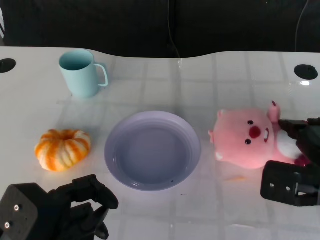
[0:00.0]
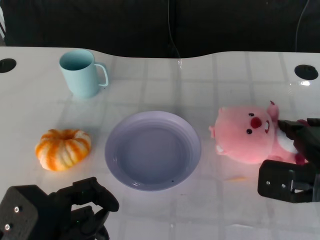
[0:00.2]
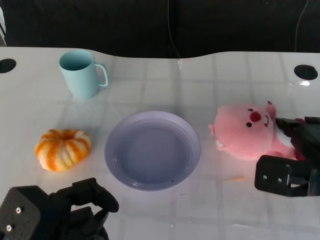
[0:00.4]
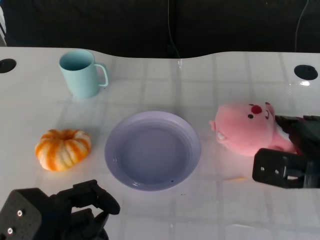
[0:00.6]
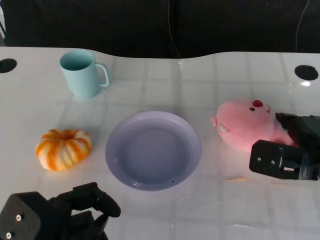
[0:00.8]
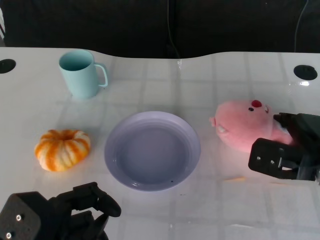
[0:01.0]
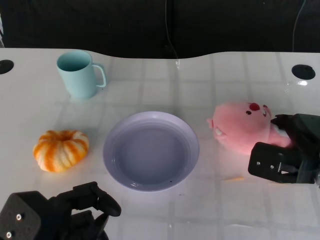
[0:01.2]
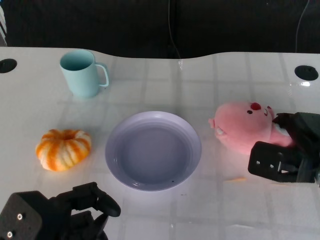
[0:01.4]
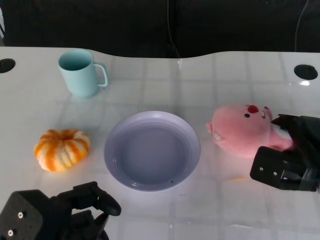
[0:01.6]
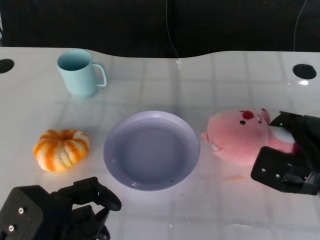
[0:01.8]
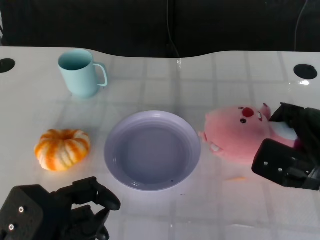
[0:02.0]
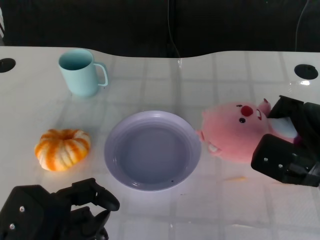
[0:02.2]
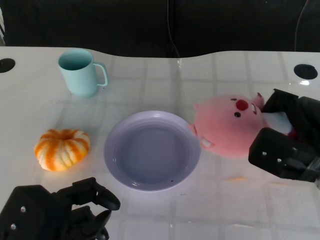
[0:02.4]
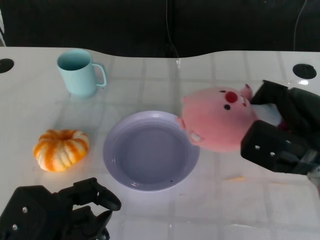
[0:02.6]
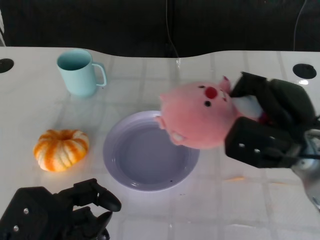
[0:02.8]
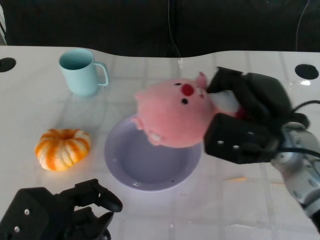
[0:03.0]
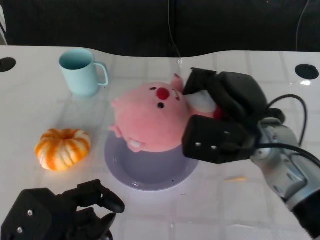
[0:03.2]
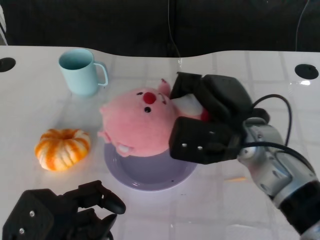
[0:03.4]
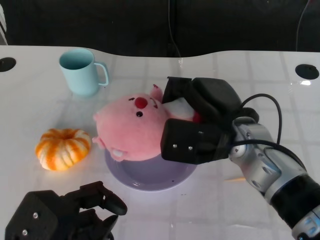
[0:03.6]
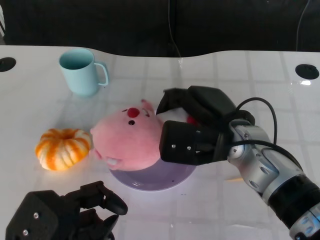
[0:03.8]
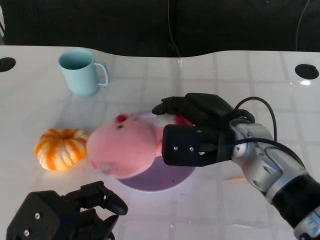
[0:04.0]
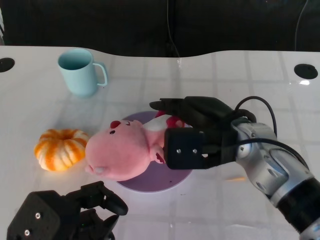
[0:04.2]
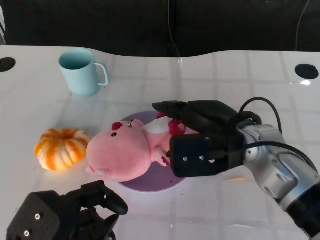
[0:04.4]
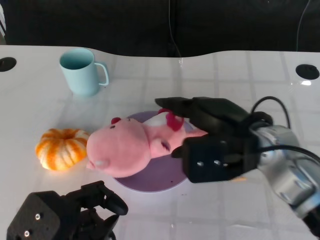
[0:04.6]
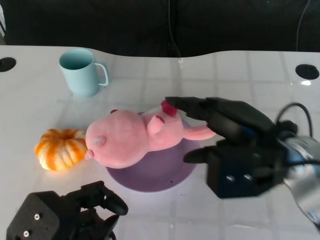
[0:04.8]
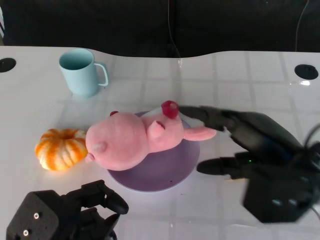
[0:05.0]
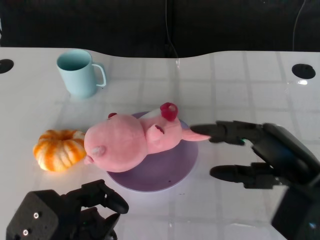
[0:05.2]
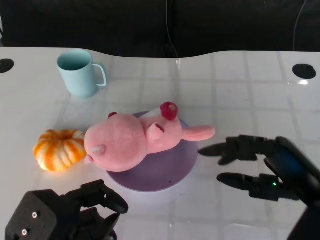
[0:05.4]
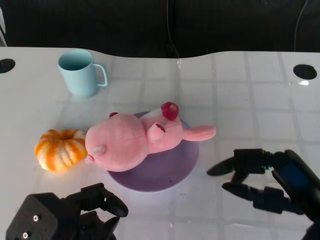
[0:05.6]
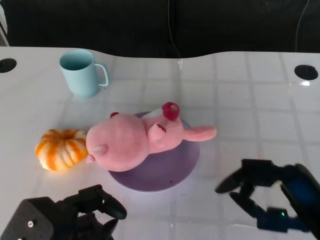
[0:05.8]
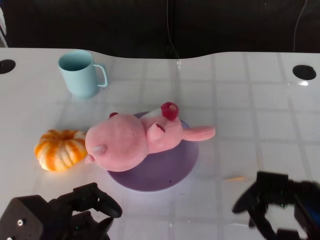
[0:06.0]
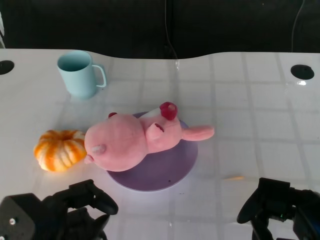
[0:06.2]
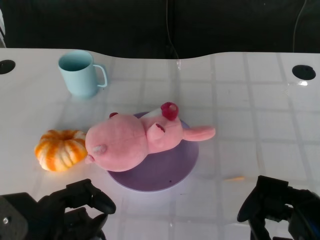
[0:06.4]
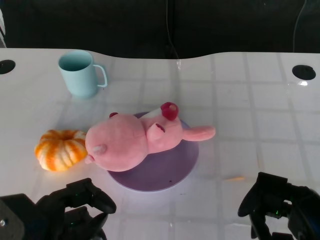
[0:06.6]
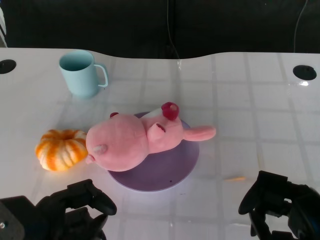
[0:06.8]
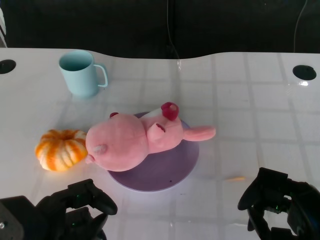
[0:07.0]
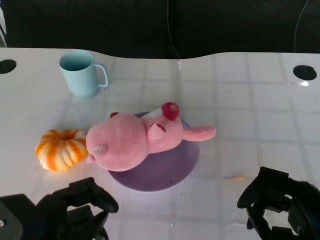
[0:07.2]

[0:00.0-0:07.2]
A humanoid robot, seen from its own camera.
Task of the whole recording: Pick up the doll on the other side of the plate and place it into the plate.
Step, 0:00.0 to 0:02.6: Grasp the pink doll with the right gripper.
Step, 0:02.8 to 0:04.8: Place the pink doll into the plate with the right gripper.
0:00.0 to 0:01.4: The right hand changes place by about 5 cm.
0:01.4 to 0:02.8: The right hand travels upward by some 5 cm.
0:02.8 to 0:04.4: The right hand goes about 10 cm to the left.
0:04.4 to 0:05.8: The right hand shifts about 15 cm backward and to the right.

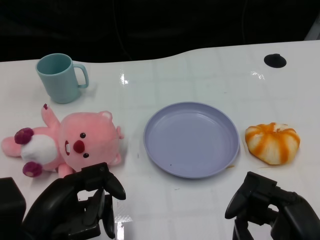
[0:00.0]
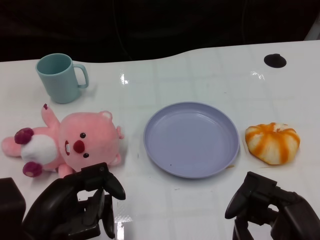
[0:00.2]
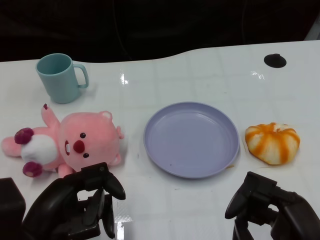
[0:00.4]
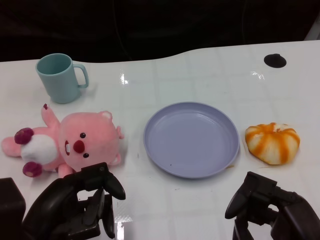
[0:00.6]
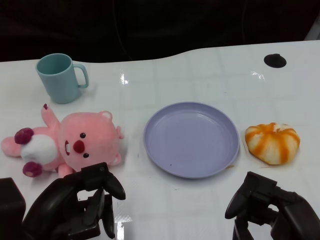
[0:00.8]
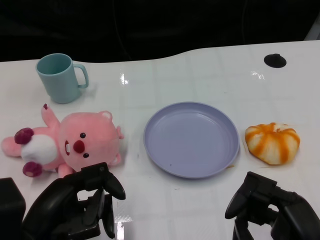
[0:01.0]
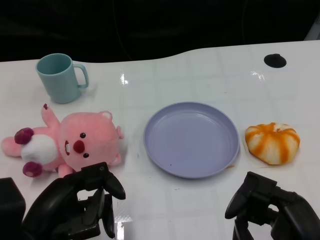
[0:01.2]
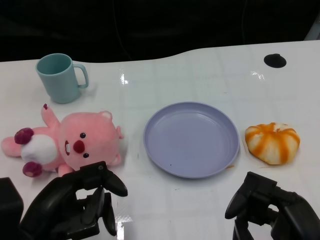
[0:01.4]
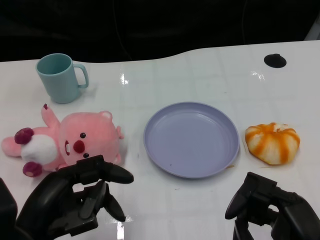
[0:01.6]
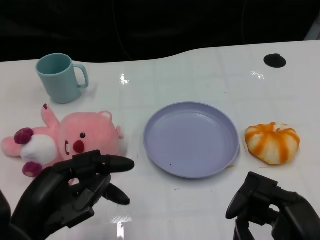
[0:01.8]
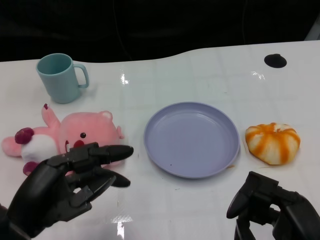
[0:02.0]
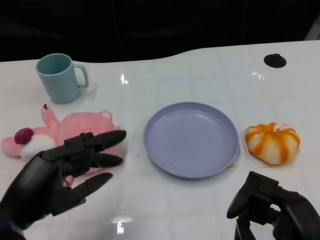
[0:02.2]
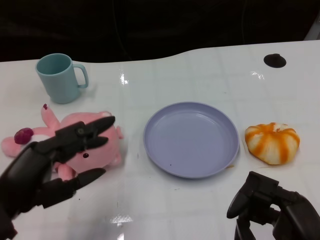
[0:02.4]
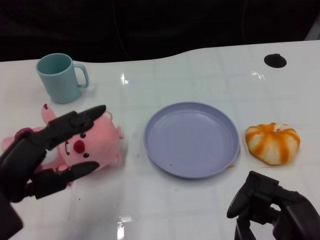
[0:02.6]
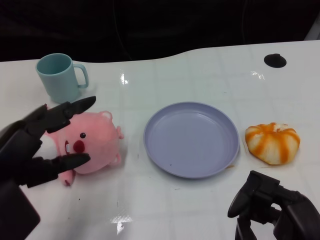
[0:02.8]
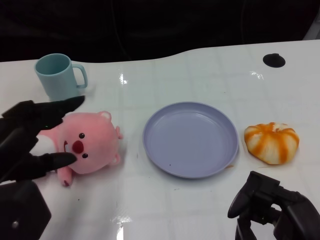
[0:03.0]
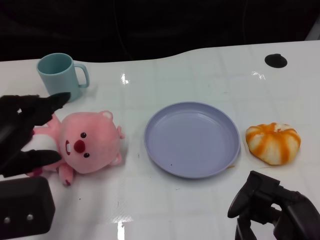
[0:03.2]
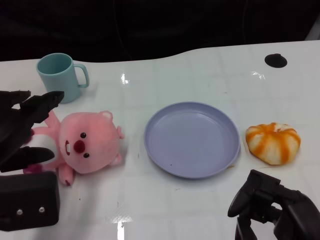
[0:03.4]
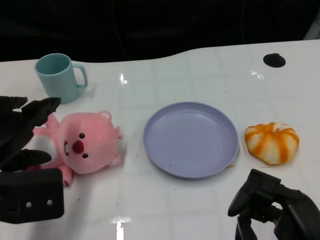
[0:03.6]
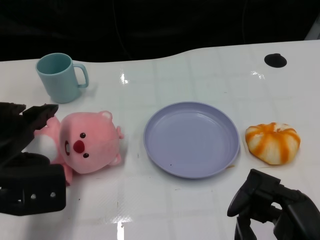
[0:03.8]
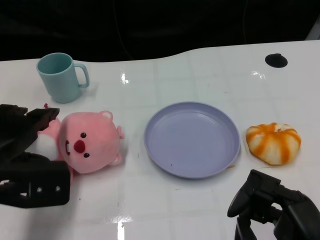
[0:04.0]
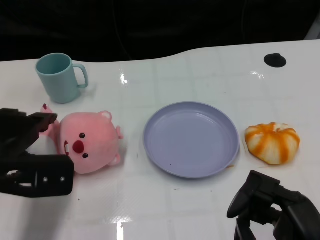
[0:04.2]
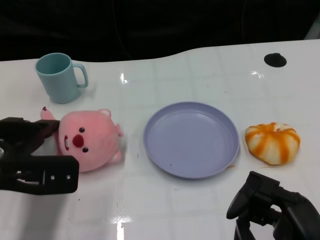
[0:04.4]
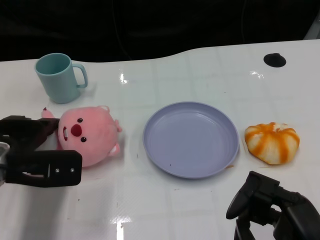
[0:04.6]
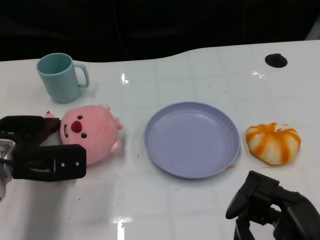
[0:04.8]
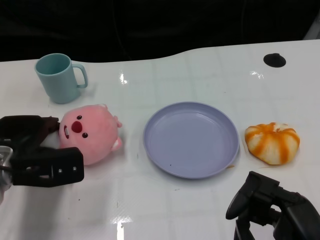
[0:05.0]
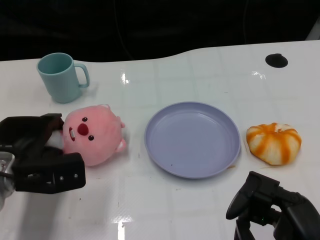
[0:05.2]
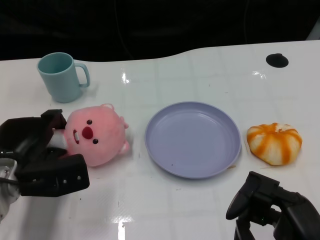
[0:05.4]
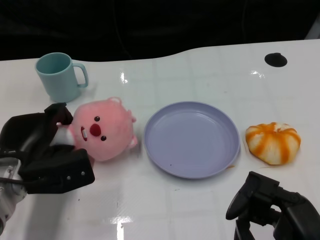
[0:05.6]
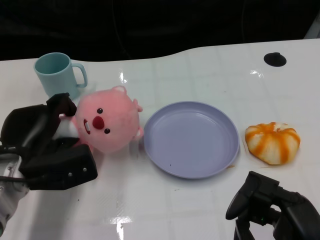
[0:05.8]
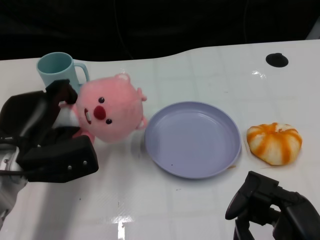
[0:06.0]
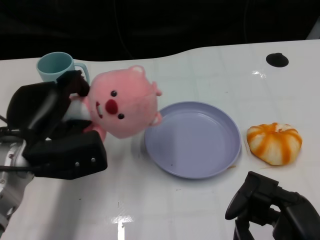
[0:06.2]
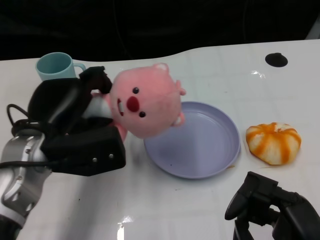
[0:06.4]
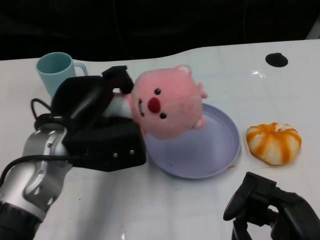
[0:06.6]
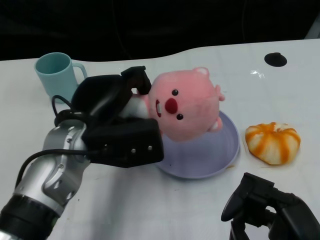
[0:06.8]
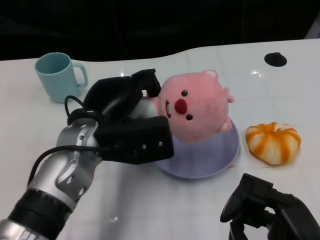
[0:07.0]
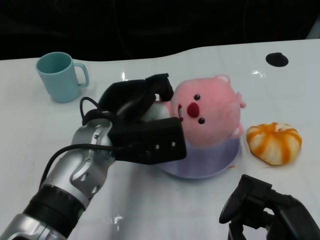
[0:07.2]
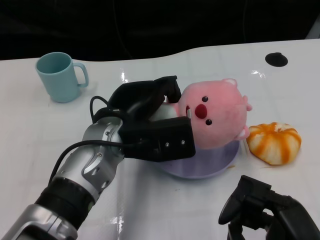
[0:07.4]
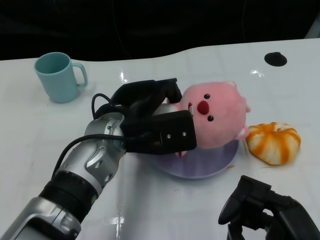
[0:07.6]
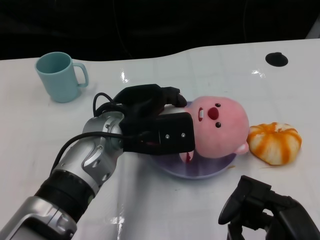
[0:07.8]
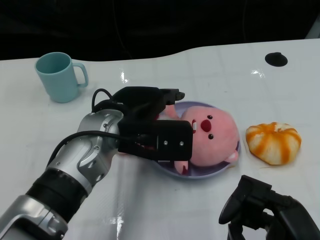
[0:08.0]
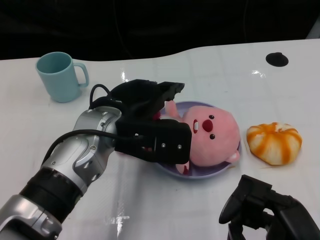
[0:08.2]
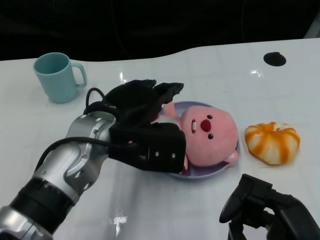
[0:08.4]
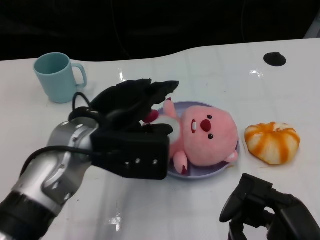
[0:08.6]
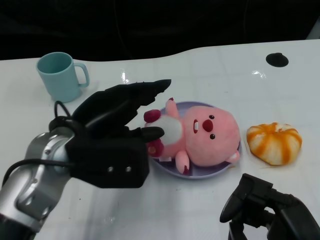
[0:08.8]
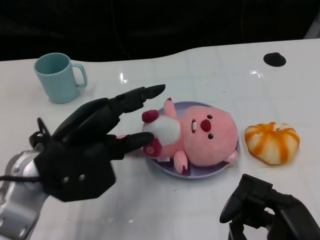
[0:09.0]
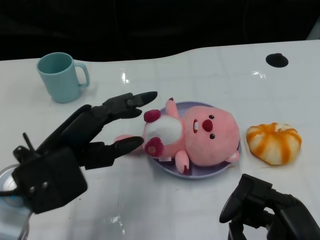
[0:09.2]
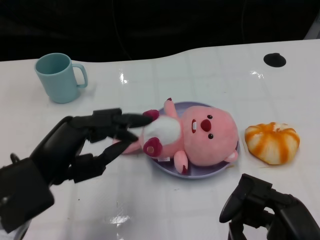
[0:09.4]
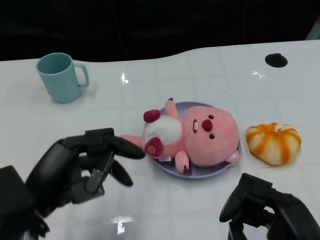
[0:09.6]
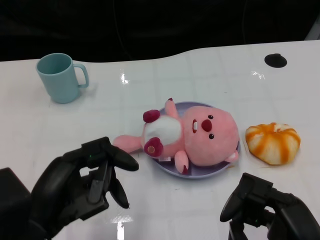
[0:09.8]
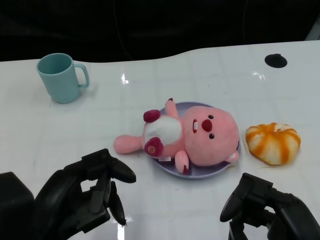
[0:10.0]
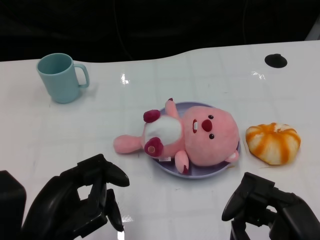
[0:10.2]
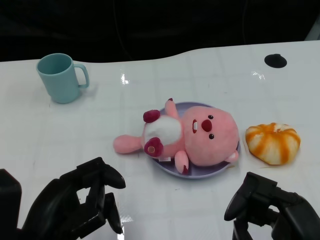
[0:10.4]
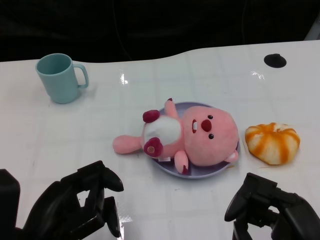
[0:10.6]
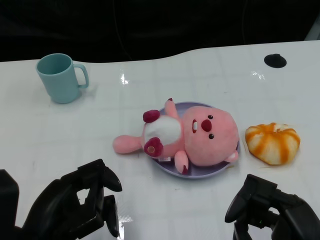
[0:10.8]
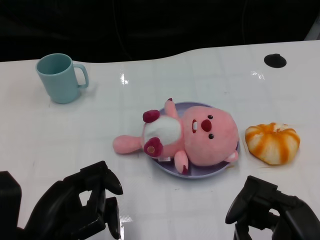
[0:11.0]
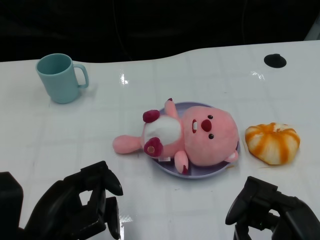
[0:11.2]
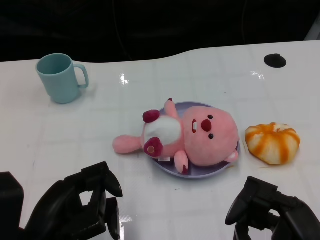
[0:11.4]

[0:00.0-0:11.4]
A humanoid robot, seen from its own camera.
Task of the whole recording: Pick up the doll on one side of the plate and place it into the plate.
Step, 0:01.4 to 0:05.6: Grasp the pink doll with the left gripper.
Step, 0:05.8 to 0:08.4: Place the pink doll into the plate with the left gripper.
0:01.4 to 0:02.8: The left hand moves upward, about 5 cm.
0:02.8 to 0:04.2: The left hand travels forward by some 10 cm.
0:04.2 to 0:05.6: The left hand heads downward, covering approximately 5 cm.
0:05.6 to 0:07.2: The left hand heads to the right and upward, covering about 15 cm.
0:08.6 to 0:10.0: The left hand heads backward and to the left, covering some 15 cm.
0:10.0 to 0:11.4: The hands move only a little.
